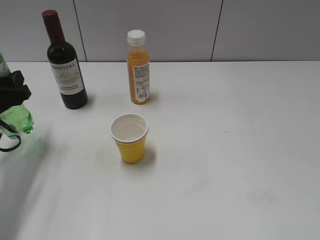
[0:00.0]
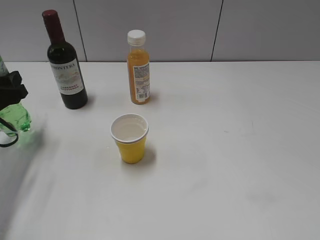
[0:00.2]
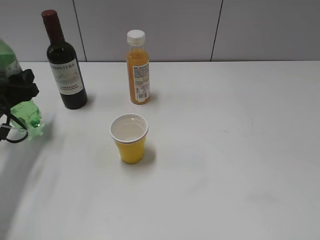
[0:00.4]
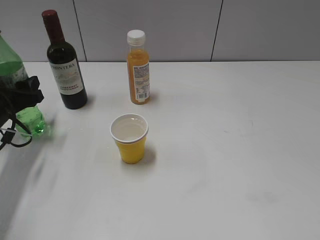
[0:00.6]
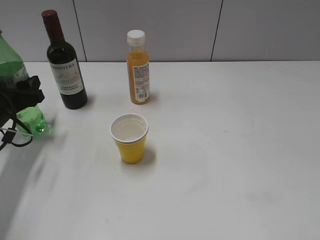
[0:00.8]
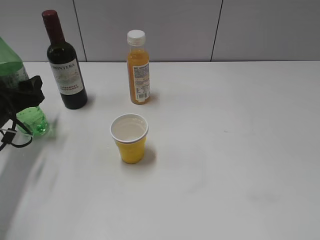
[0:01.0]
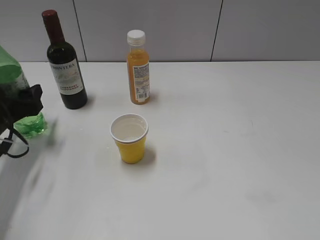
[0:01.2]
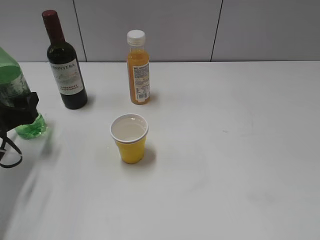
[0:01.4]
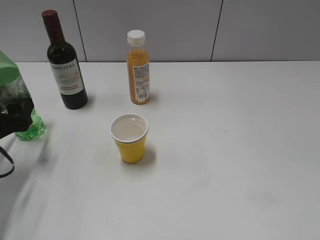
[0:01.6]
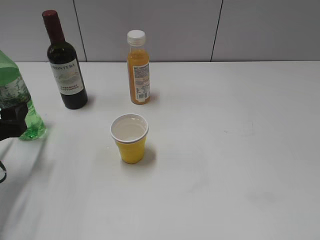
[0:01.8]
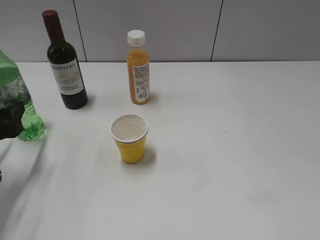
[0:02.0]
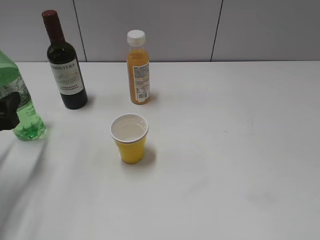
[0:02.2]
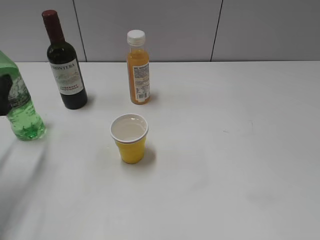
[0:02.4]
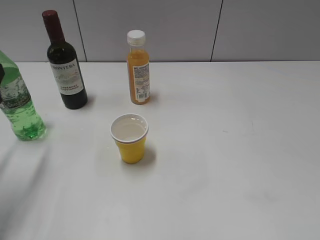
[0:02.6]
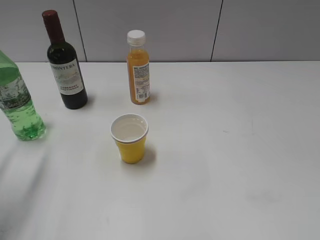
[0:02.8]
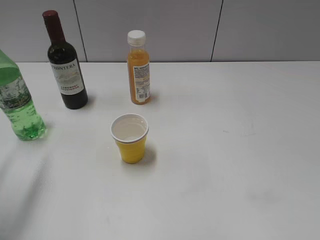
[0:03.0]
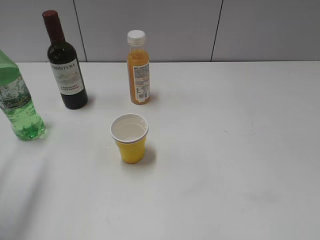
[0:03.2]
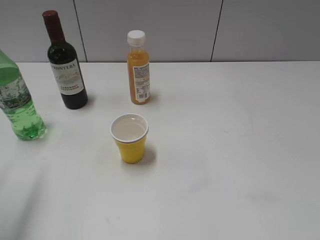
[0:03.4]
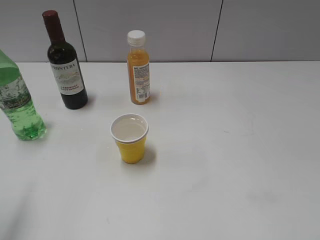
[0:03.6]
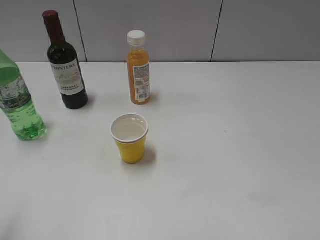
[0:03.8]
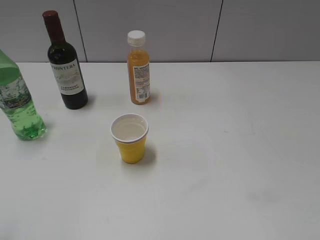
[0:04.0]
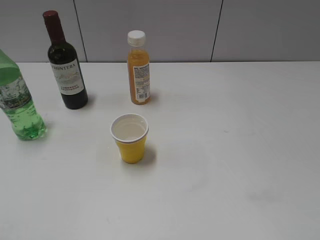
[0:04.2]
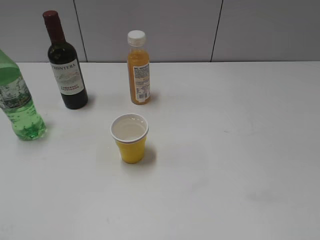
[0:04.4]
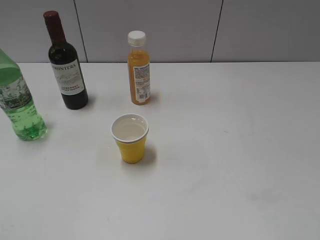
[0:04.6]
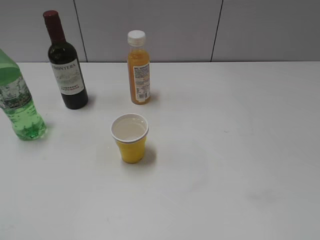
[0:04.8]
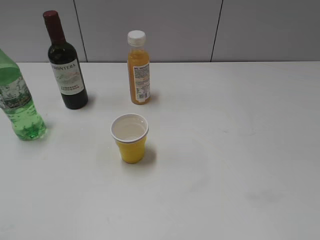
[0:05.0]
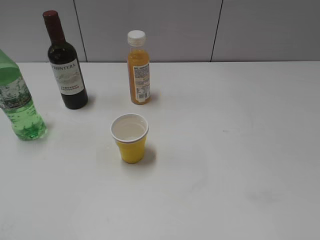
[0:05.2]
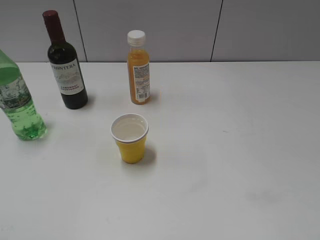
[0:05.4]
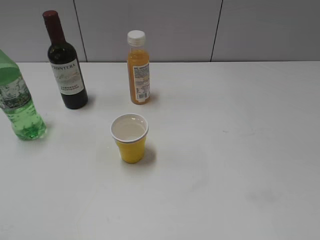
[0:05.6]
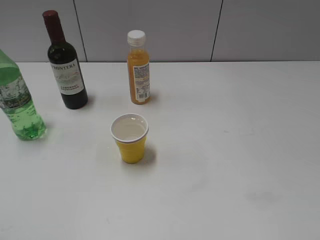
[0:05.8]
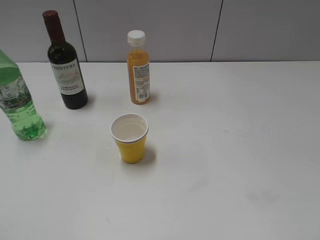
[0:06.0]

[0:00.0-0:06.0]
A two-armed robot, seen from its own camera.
0:00.0 to 0:01.6: The left gripper opens up.
0:01.6 to 0:03.0: The left gripper shifts some 15 cm upward and backward.
0:03.0 to 0:04.4: The left gripper is displaced backward by some 20 cm.
